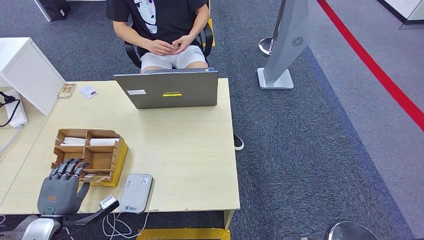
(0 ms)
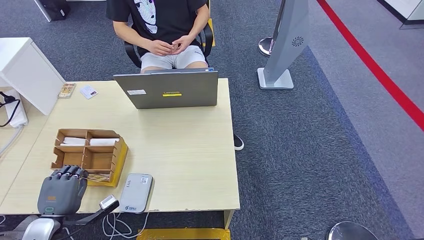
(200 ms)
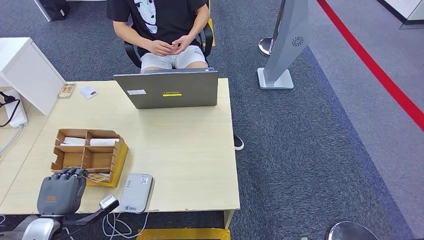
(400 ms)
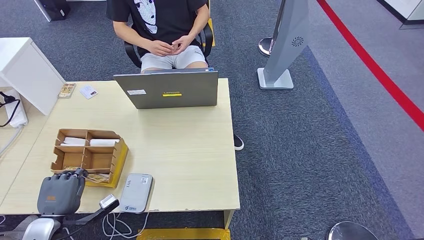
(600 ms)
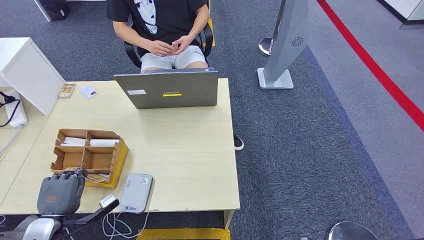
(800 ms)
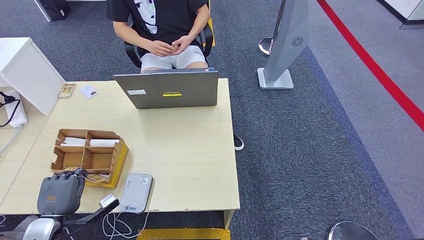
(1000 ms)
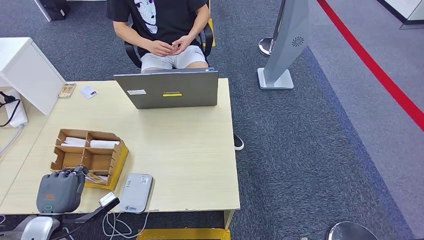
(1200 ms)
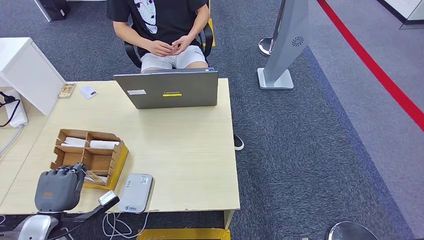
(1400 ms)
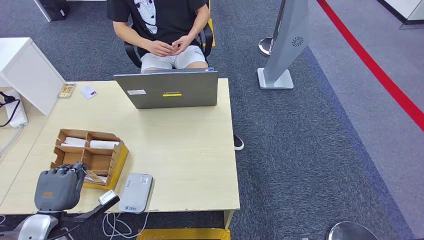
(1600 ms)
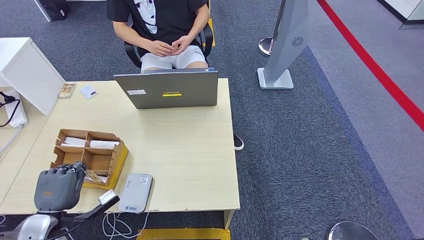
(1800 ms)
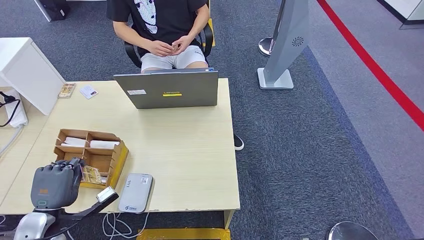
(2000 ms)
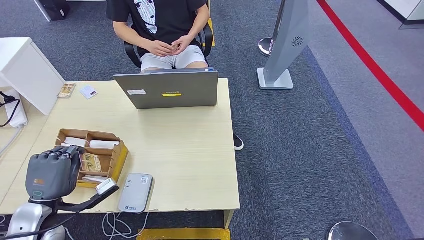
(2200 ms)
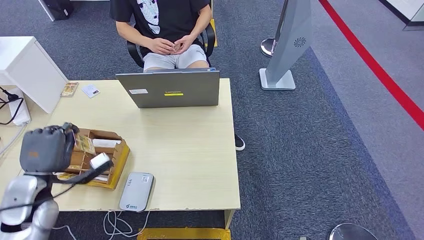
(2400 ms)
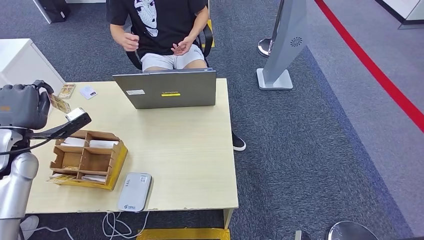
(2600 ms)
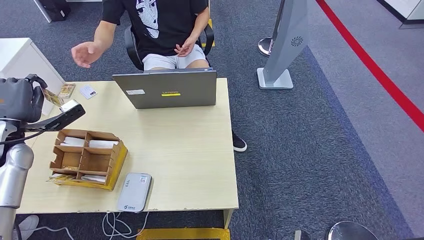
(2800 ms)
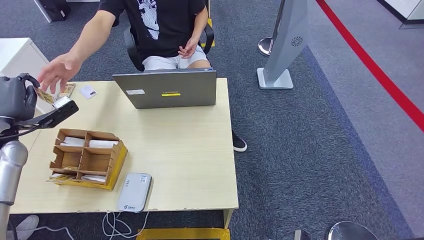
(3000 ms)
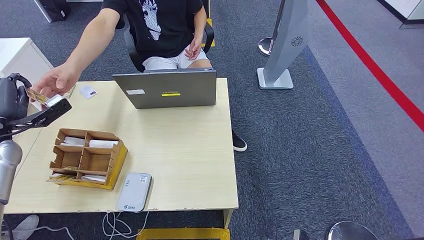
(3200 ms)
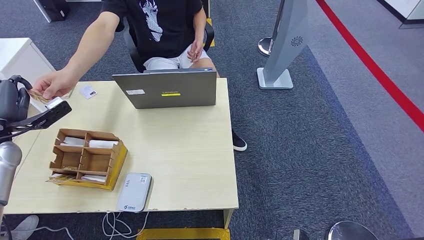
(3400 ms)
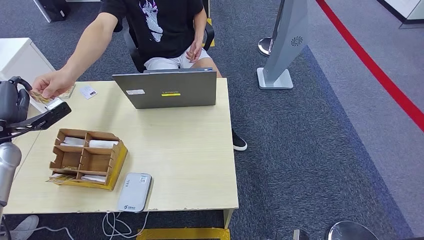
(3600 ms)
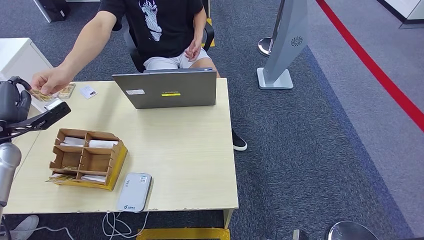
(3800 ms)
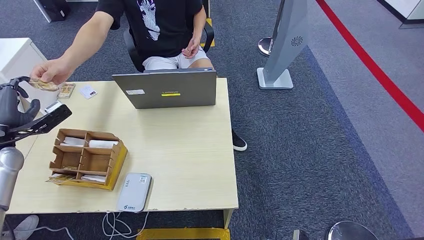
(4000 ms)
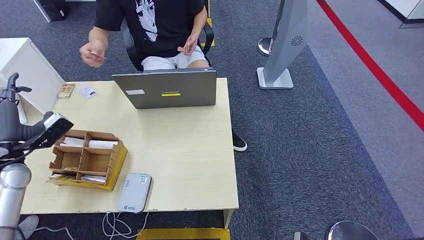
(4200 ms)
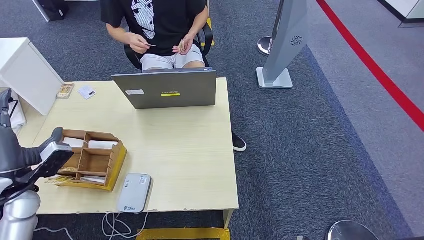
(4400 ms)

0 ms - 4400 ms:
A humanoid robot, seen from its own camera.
Step, 1400 ms - 4400 ms: Hand the room key to the person.
0 ms - 1400 ms: The hands move only a little.
1400 ms - 3000 ms: The left hand shifts about 25 cm forward and upward.
3000 ms - 4400 ms: The left hand moves backward and downward, some 10 cm.
